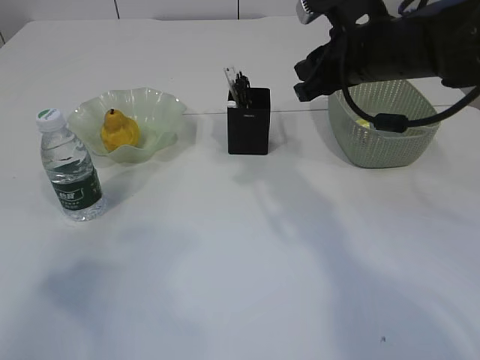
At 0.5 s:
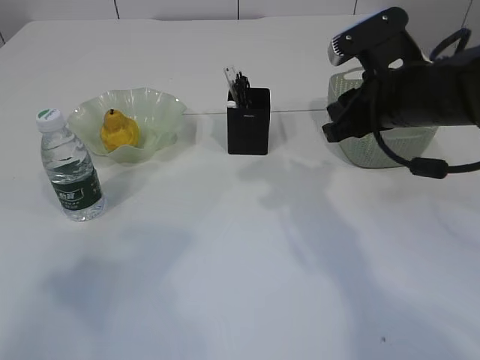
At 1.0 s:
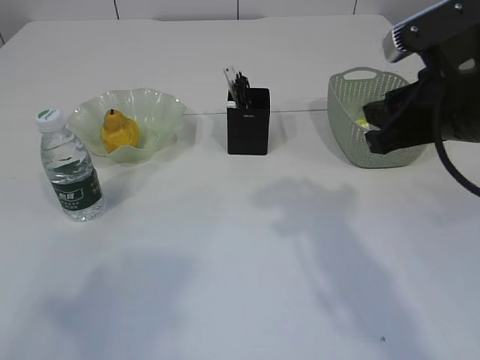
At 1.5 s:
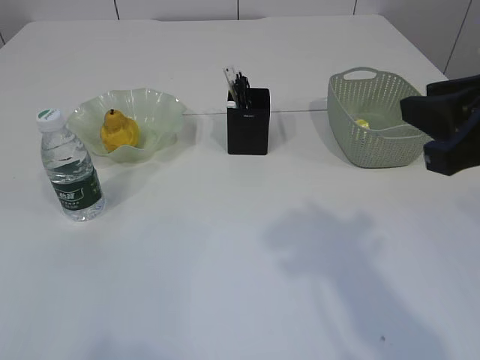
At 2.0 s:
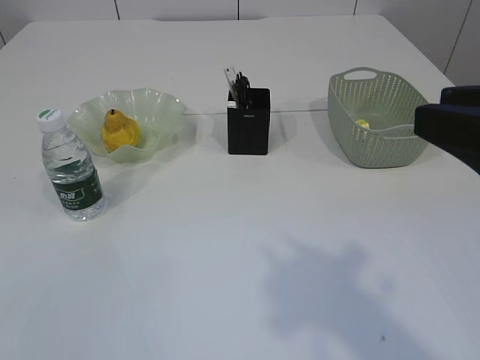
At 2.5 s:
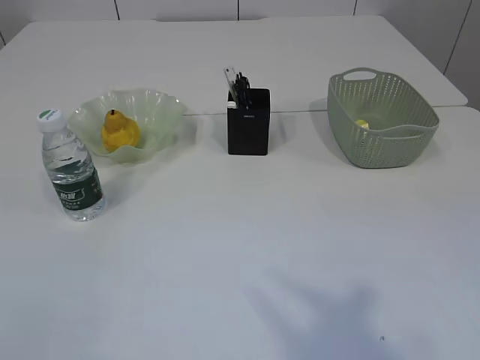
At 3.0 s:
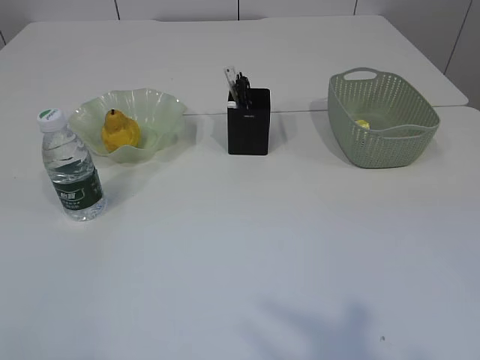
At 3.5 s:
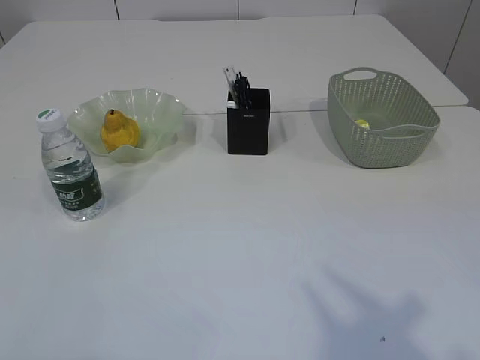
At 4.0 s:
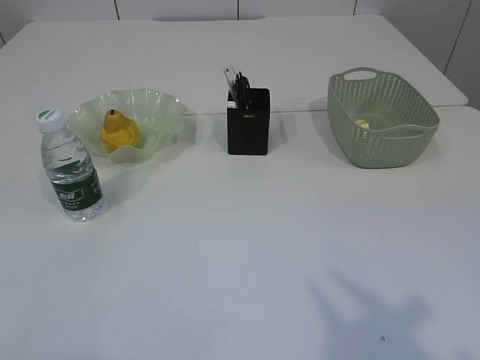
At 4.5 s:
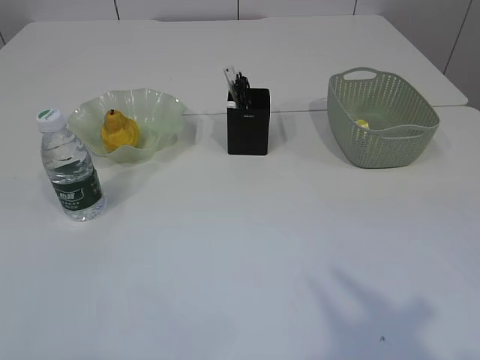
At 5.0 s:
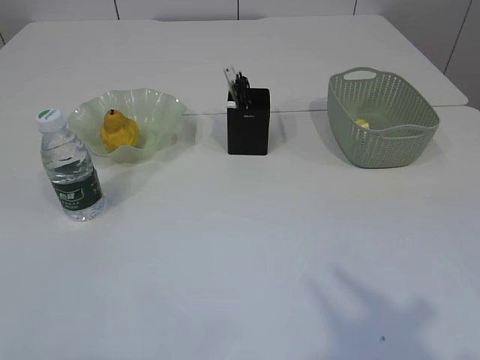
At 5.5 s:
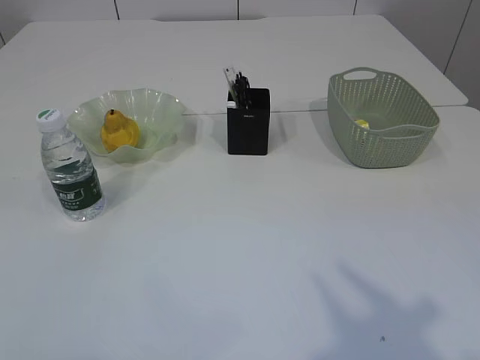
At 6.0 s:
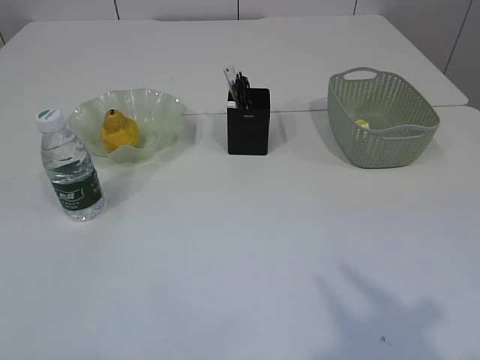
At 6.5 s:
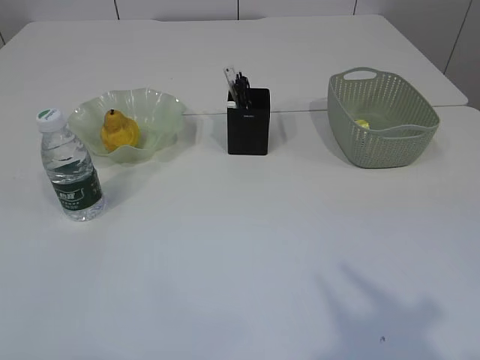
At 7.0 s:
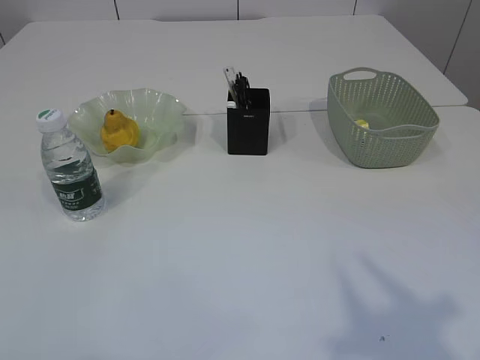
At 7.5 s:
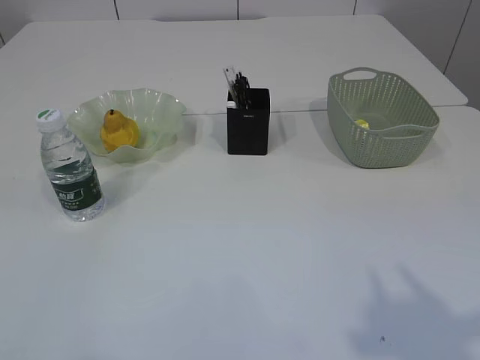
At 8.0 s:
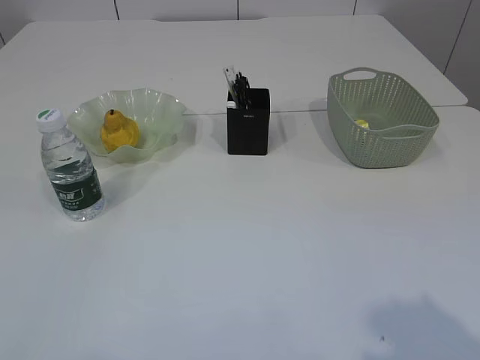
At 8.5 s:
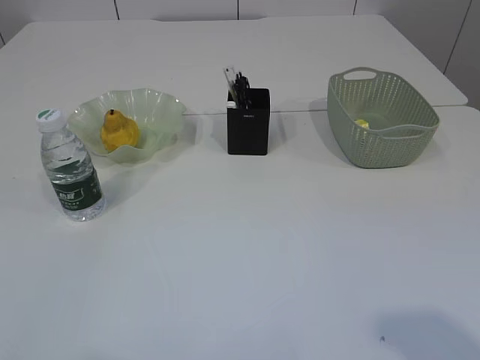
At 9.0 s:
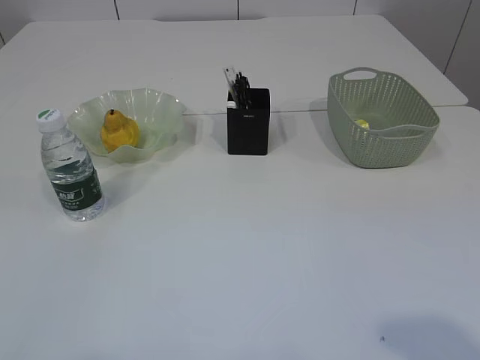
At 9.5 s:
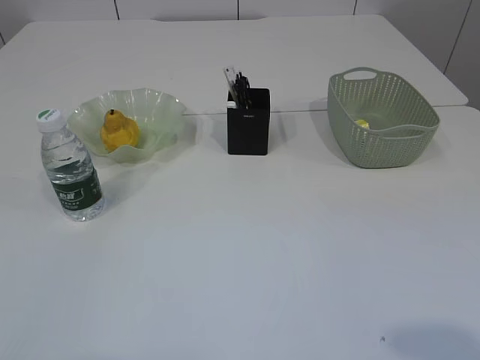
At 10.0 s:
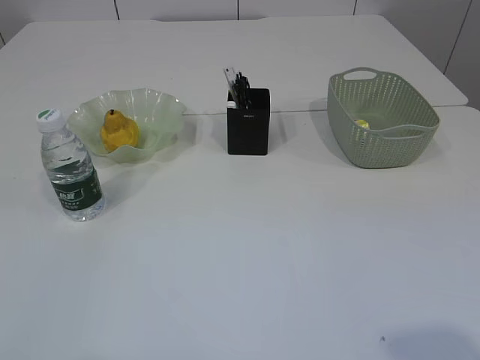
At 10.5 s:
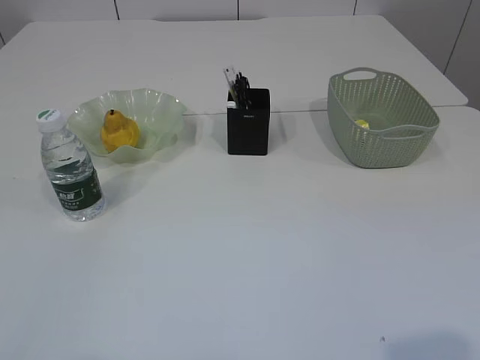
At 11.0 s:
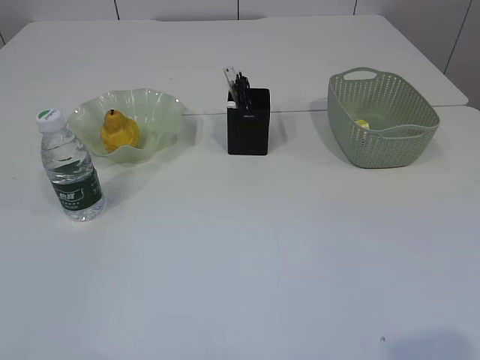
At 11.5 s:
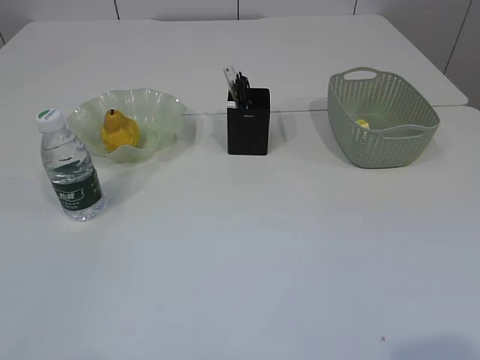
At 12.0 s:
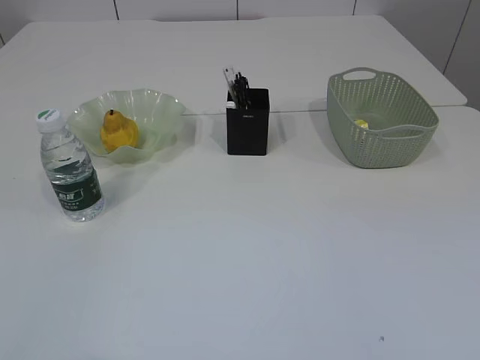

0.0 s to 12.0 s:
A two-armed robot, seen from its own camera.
0.0 to 2.0 s: The left gripper moves backward, roughly 15 cm. The right gripper is displaced backward by approximately 25 cm.
2.0 to 4.0 s: The right gripper moves backward, some 5 cm.
10.0 to 12.0 s: The right gripper changes place by some 5 cm.

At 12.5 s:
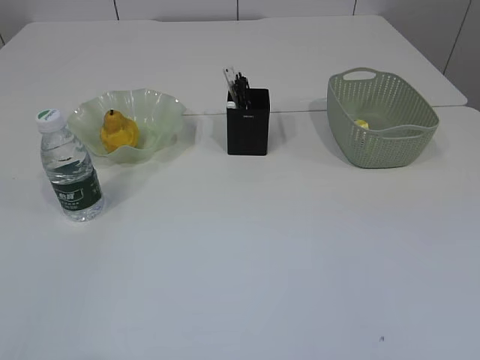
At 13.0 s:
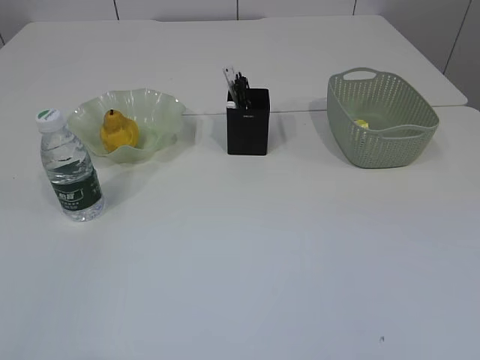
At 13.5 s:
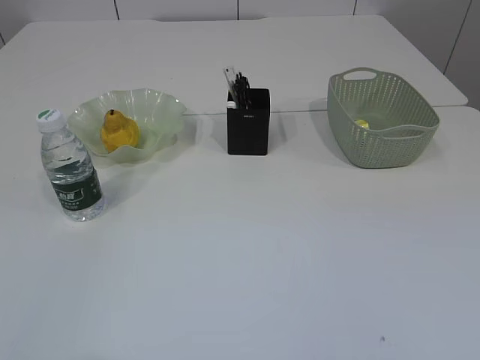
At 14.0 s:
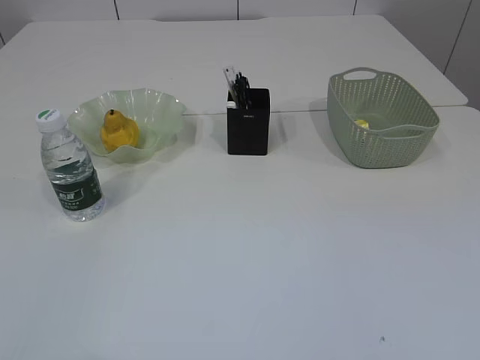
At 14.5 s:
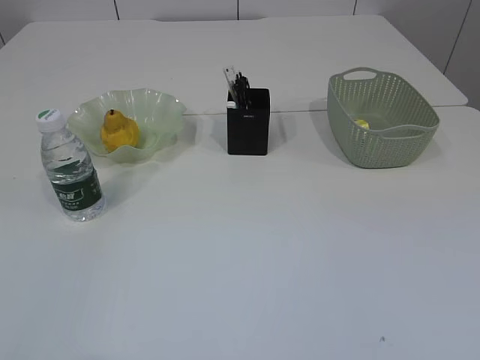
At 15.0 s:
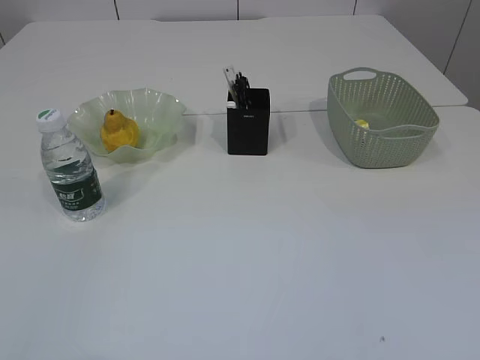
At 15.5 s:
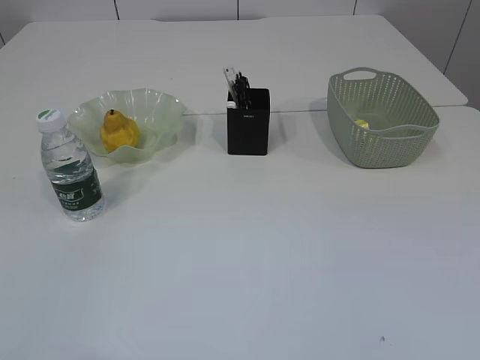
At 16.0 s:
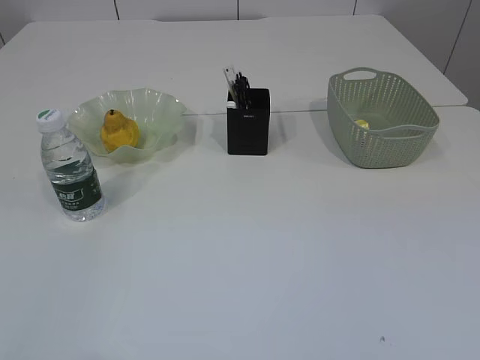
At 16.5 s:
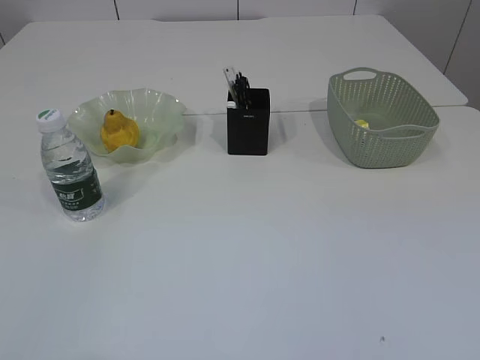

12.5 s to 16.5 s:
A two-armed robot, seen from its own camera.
14.5 to 16.5 s: Both grippers stay put.

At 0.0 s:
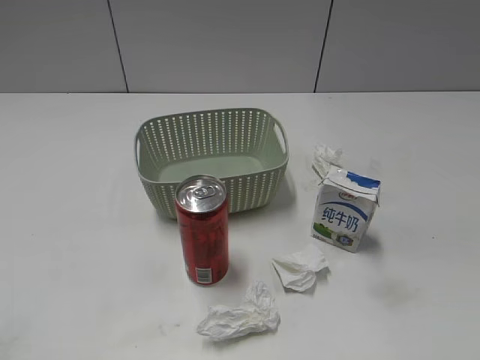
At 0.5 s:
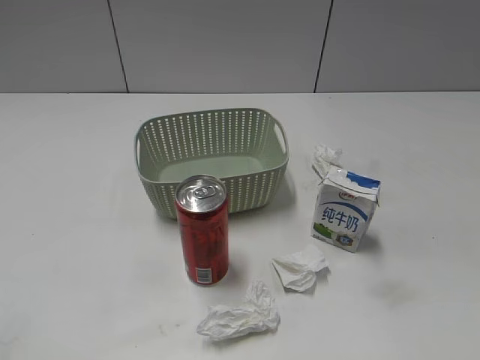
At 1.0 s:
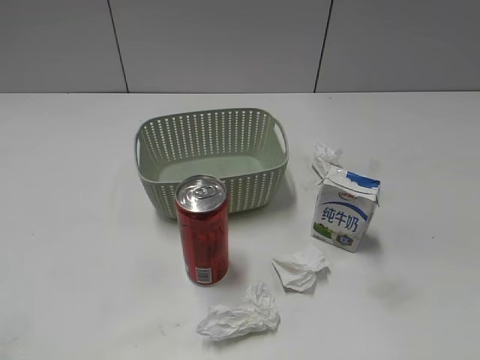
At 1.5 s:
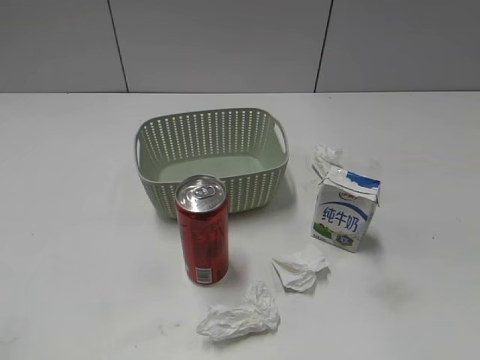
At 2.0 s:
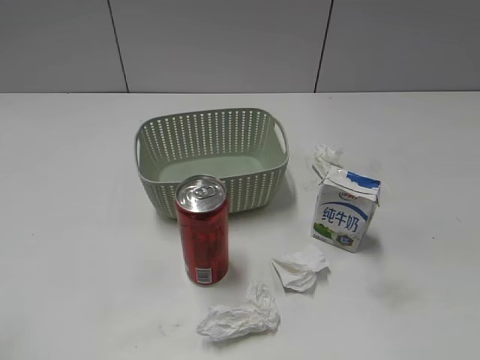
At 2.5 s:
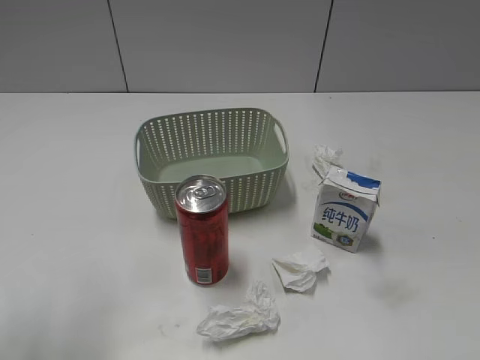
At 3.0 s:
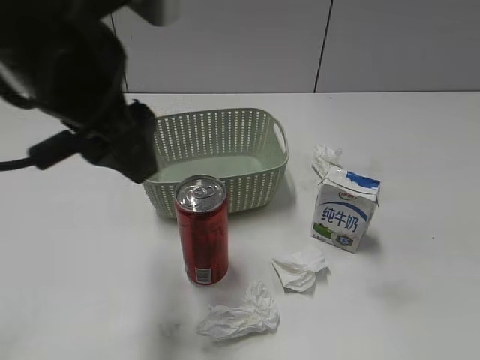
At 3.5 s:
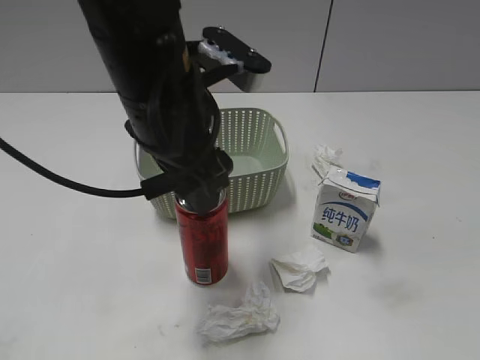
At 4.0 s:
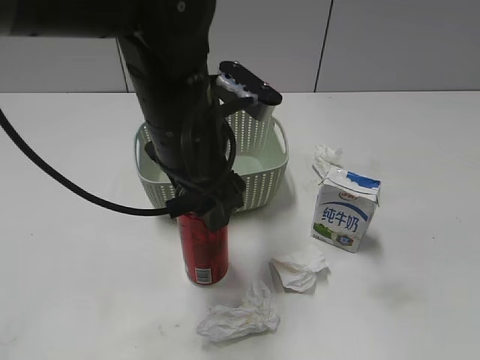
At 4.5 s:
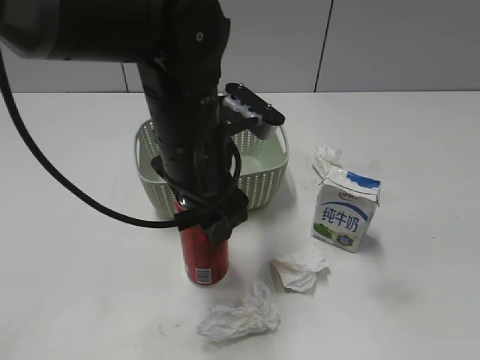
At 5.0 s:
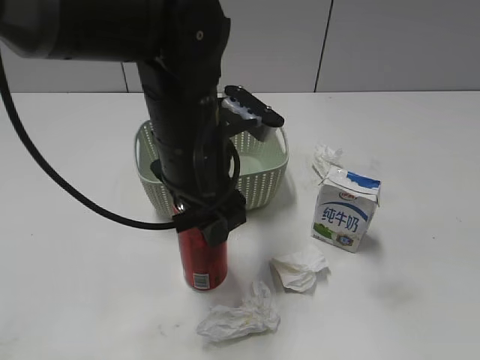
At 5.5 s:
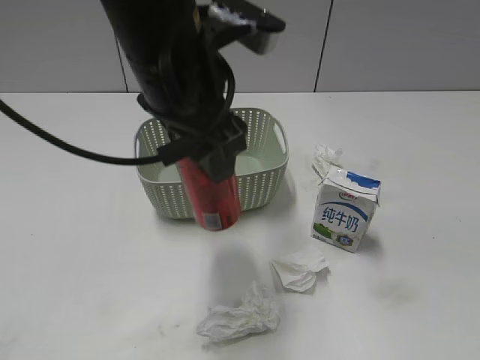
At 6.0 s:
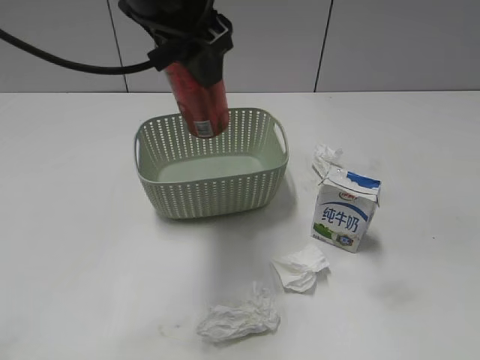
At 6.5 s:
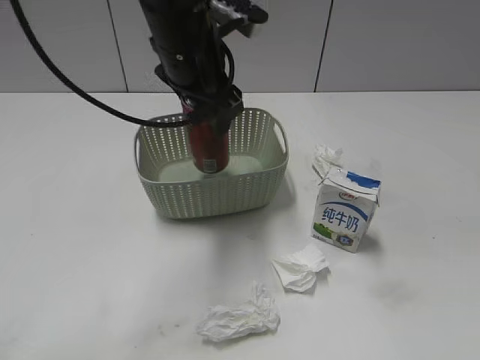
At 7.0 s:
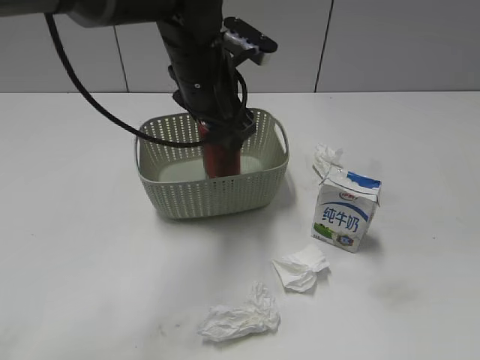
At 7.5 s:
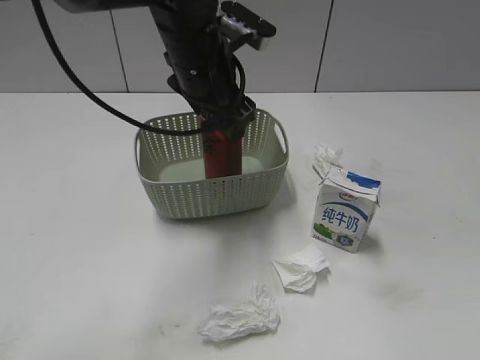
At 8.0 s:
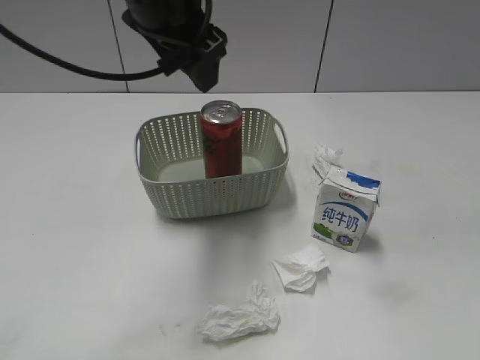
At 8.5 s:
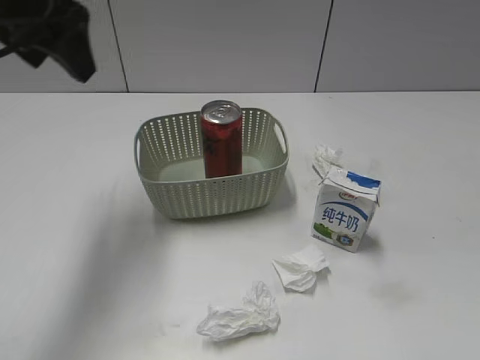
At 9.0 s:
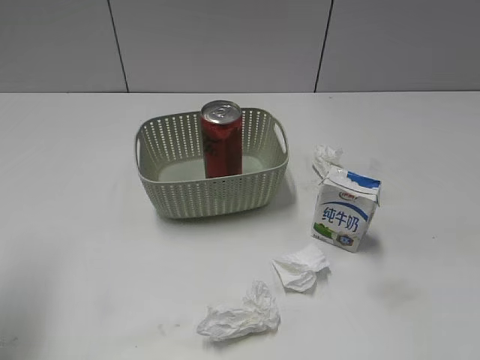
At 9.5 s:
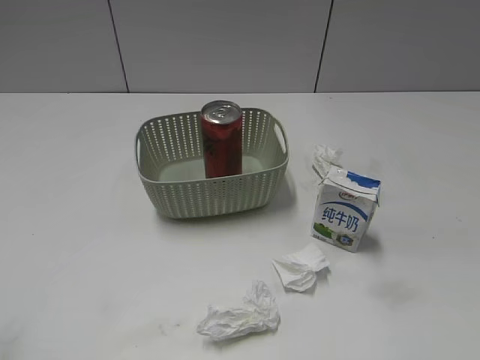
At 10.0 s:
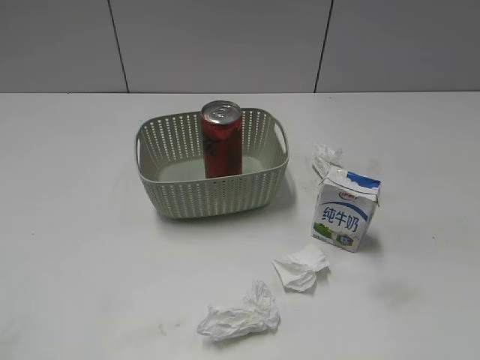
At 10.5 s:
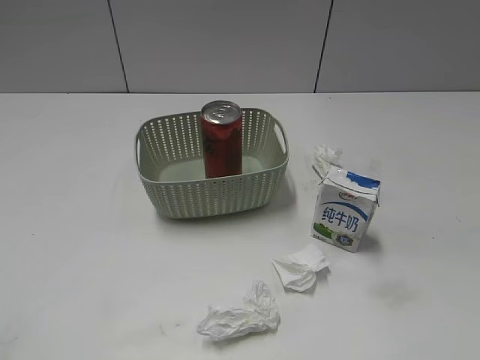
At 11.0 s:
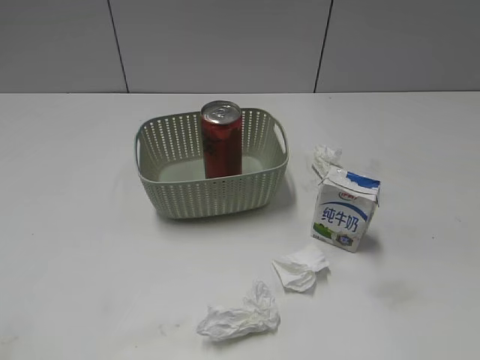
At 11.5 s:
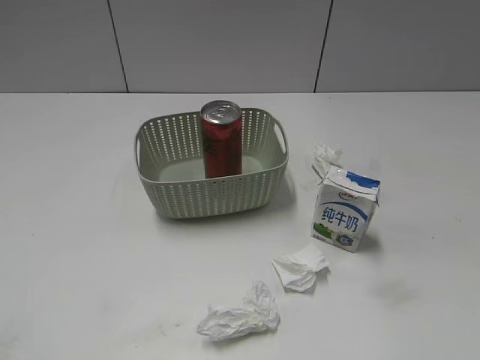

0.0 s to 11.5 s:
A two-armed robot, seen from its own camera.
Step, 3.0 to 4.5 s: Grasp the cola can with left gripper.
Step, 5.0 to 7.5 s: Place the cola can in the basket with left gripper.
2.0 to 4.0 s: The left gripper heads to the right and forward, covering approximately 30 cm.
4.0 to 6.0 s: The left gripper goes approximately 10 cm upward.
6.0 to 7.5 s: The left gripper shifts roughly 15 cm downward and forward, and opens up.
7.5 to 9.5 s: The left gripper is displaced backward and to the left by roughly 40 cm, and closes up.
